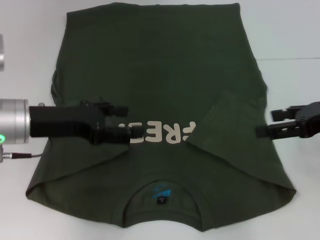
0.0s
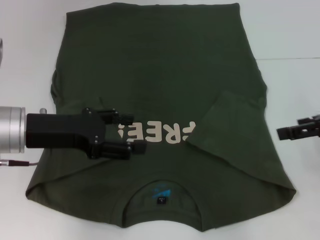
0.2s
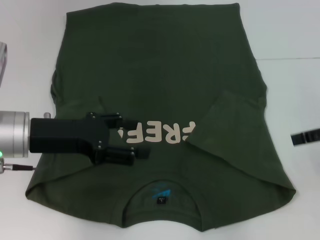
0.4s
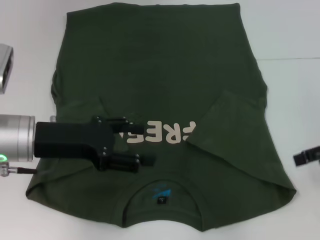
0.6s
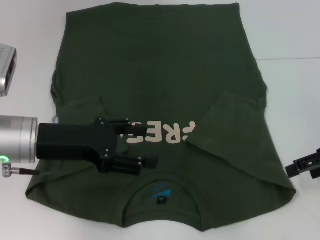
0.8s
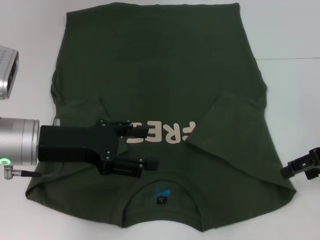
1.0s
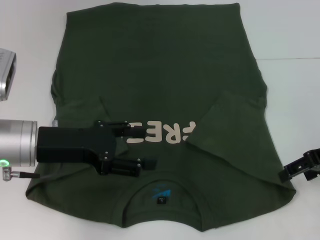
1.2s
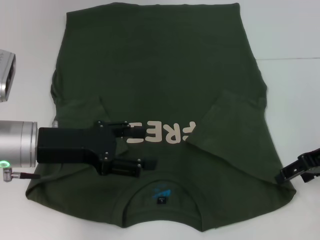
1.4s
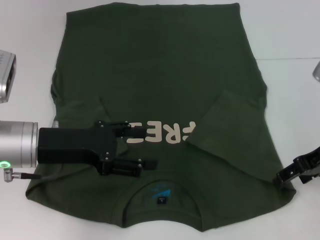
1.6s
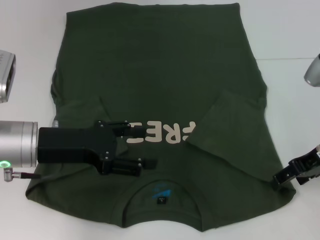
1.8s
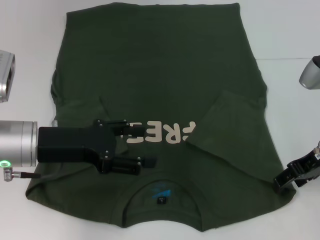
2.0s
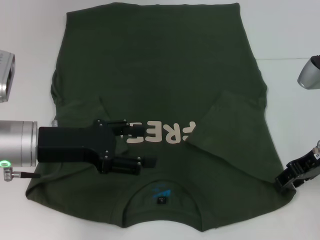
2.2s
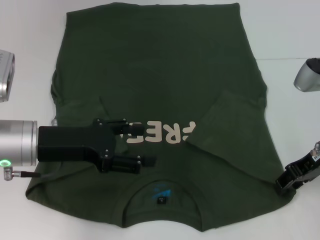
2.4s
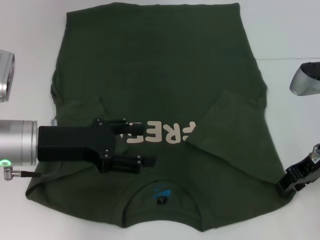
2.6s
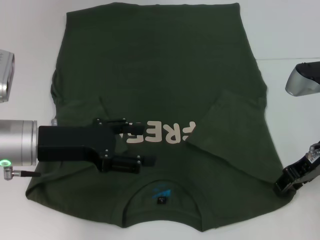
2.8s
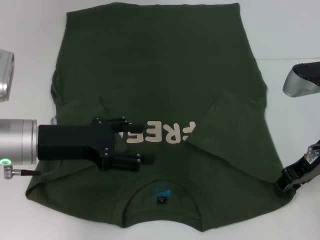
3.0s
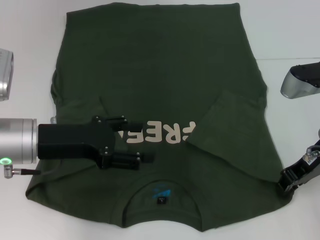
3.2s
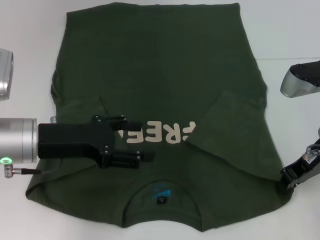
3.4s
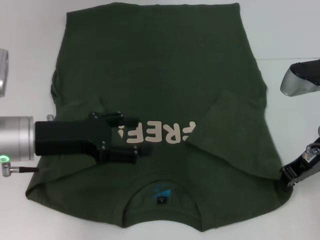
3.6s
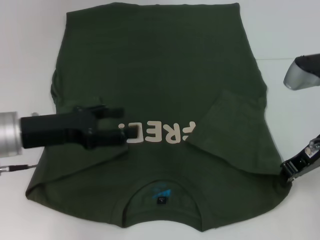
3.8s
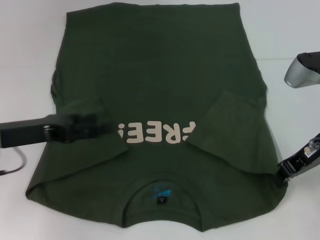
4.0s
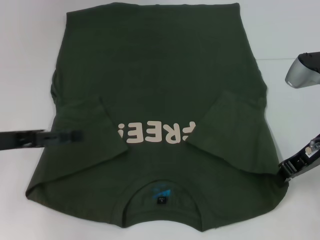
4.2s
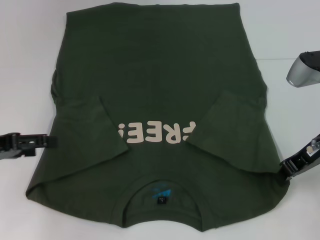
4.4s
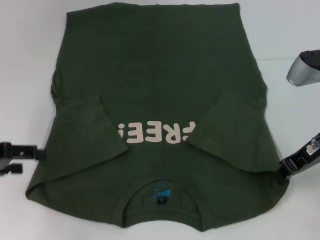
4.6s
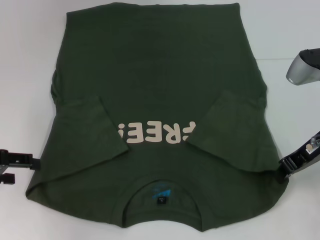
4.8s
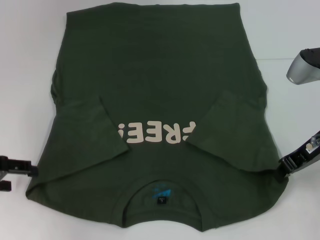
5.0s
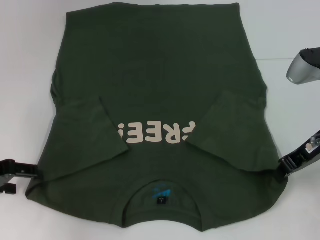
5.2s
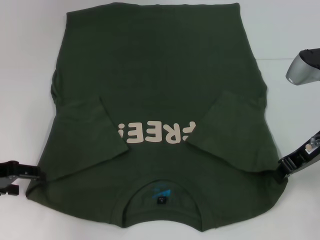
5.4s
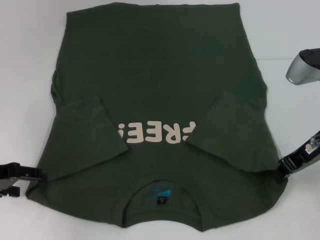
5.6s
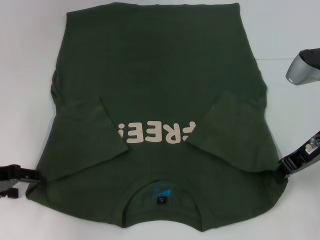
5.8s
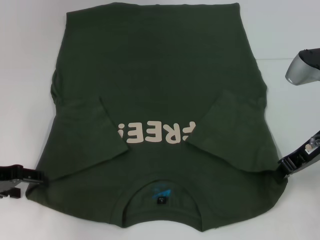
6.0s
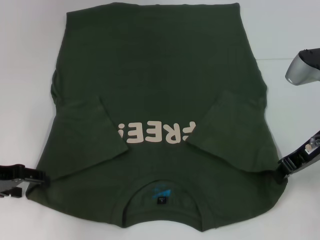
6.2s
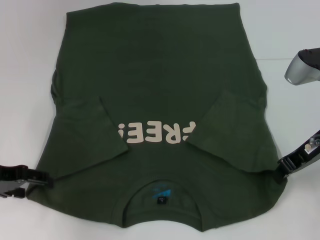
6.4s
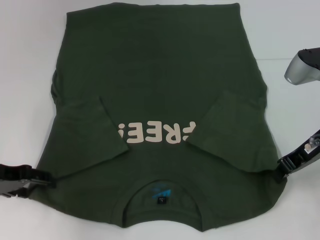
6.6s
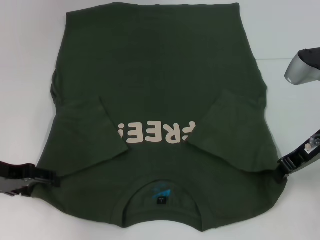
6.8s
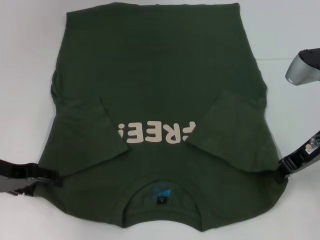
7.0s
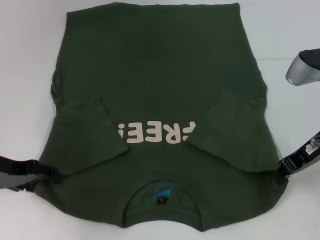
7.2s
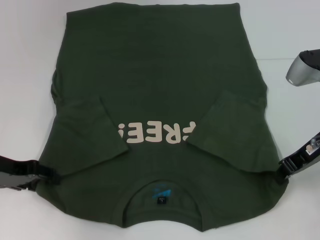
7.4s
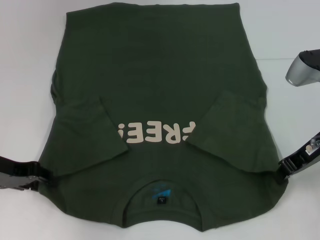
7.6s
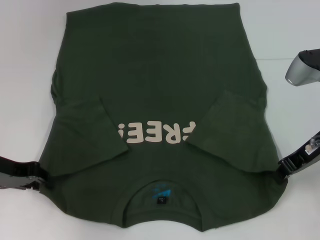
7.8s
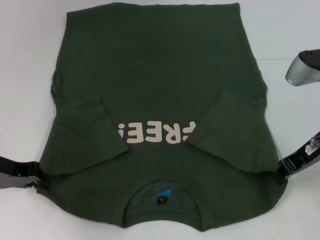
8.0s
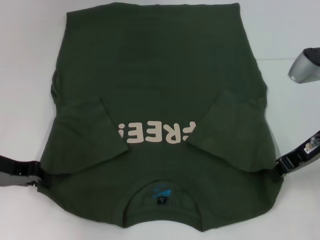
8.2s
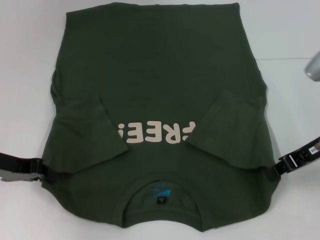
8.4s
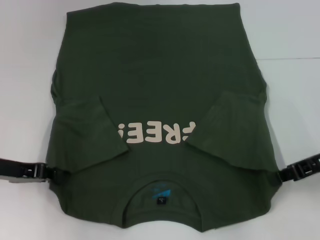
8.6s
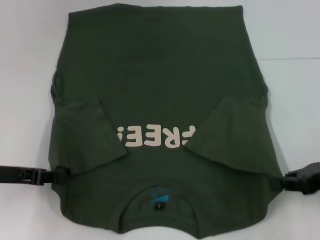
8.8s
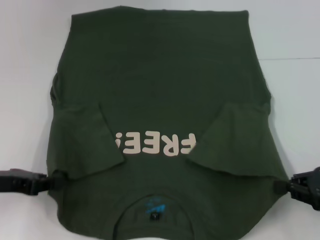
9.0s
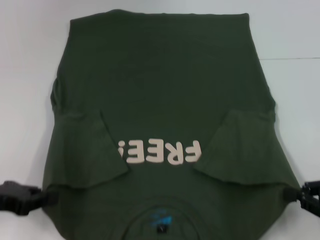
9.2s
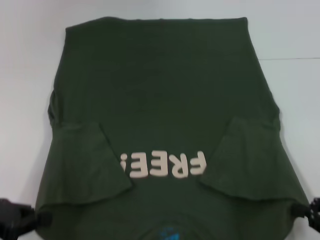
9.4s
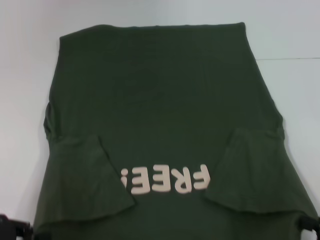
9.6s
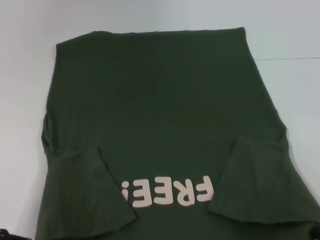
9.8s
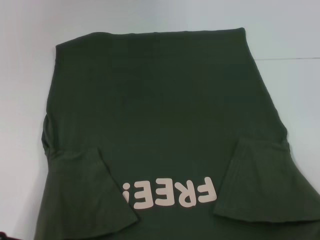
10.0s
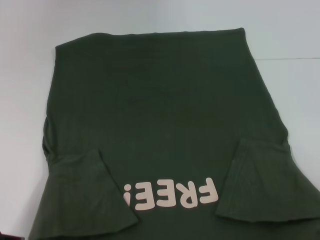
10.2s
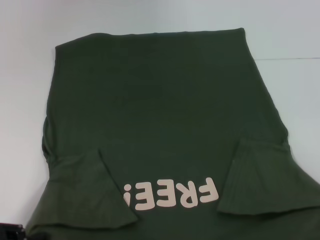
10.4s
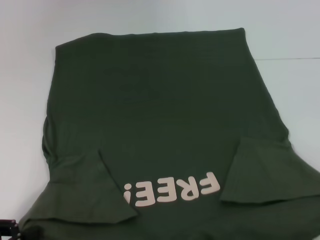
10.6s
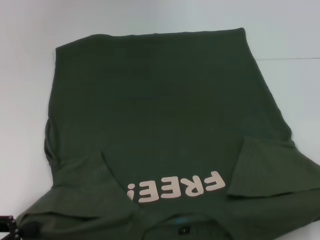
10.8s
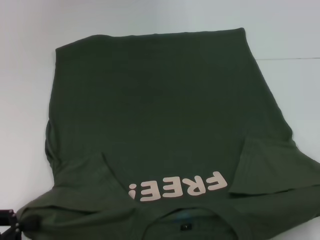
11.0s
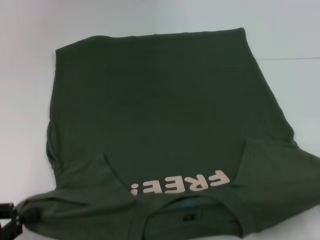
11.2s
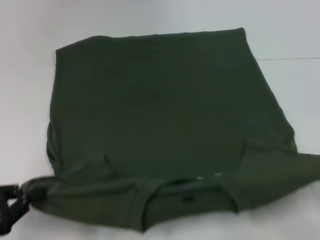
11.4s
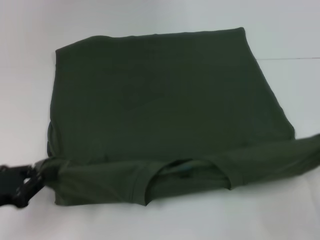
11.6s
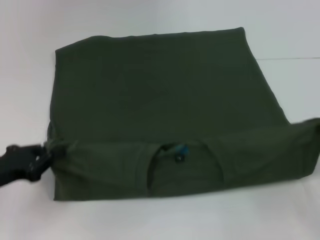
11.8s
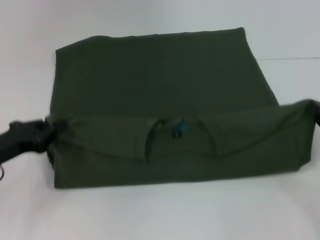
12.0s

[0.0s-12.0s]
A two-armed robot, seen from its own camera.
Step, 0.0s to 4.0s: Grab the bottom right corner with your right hand.
Step, 4.2s to 8.2s: Grab the bottom left corner with your left hand.
0.0s to 1.6s: The right gripper changes place by roughly 5 cm.
1.6s to 3.0s: The right gripper closes.
3.0s to 4.4s: The left gripper goes some 10 cm to the left; the right gripper closes up.
6.0s to 7.6s: There are only small adjustments of the grippers.
7.6s to 9.0s: The left gripper closes its fingers. The right gripper goes about 15 cm backward, to the right and downward.
9.0s to 10.4s: Both grippers move backward, approximately 10 cm.
10.4s to 12.0s: The grippers both shift forward by about 15 cm.

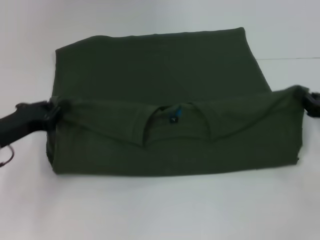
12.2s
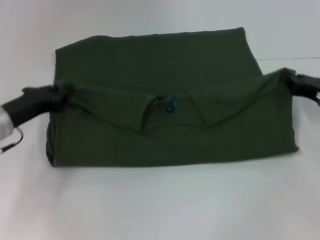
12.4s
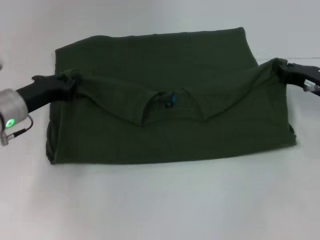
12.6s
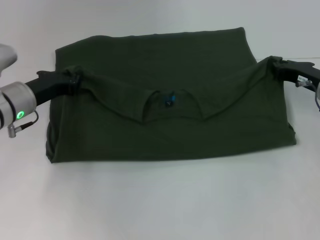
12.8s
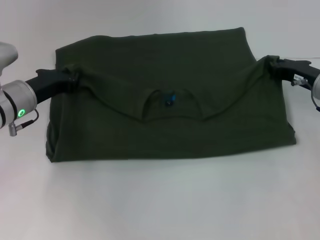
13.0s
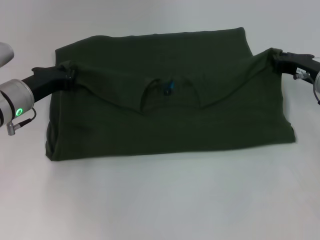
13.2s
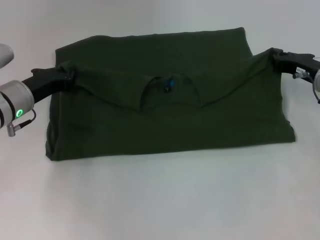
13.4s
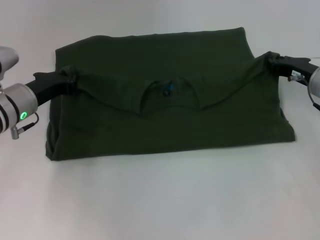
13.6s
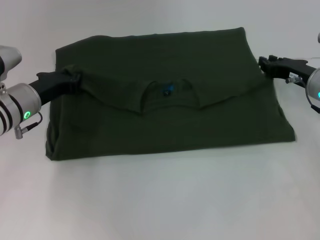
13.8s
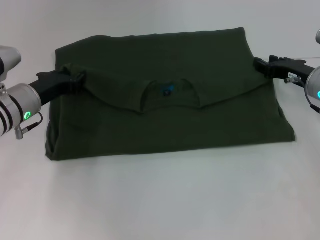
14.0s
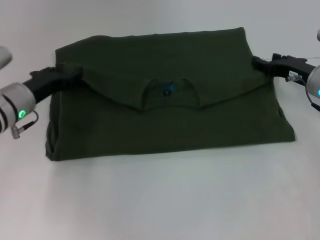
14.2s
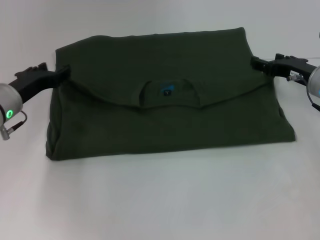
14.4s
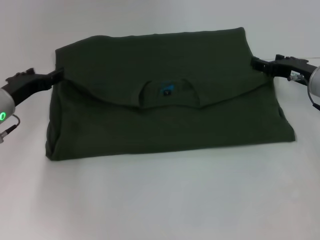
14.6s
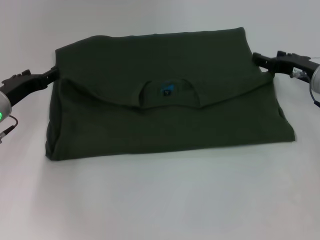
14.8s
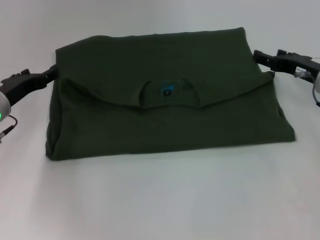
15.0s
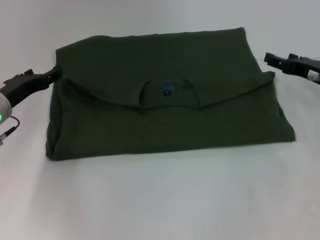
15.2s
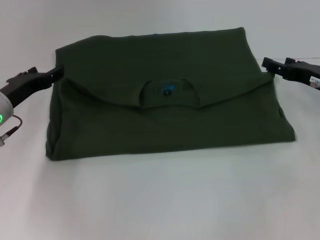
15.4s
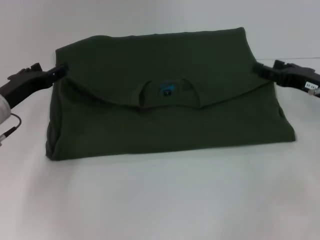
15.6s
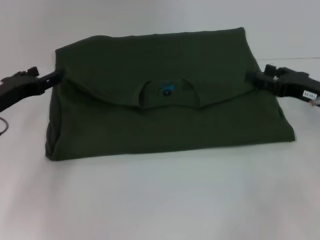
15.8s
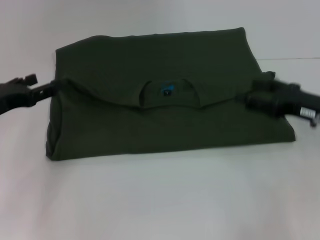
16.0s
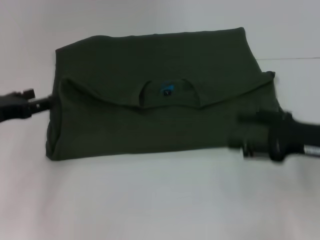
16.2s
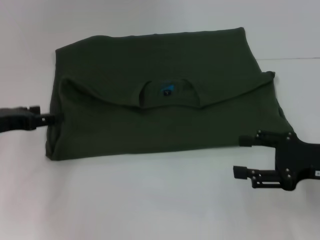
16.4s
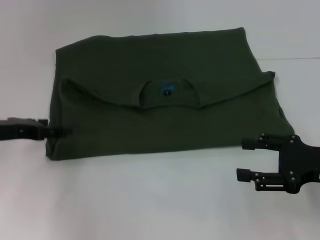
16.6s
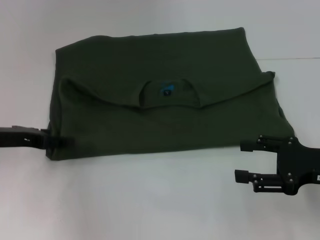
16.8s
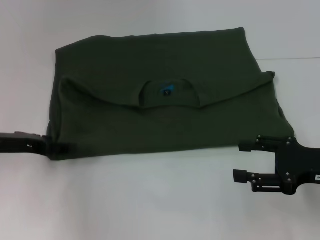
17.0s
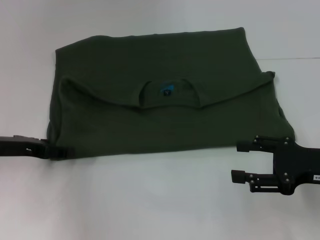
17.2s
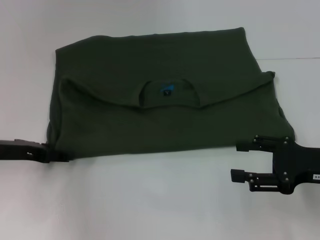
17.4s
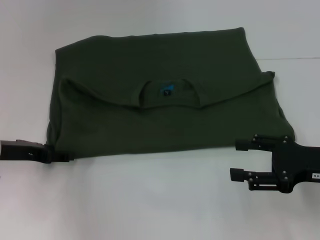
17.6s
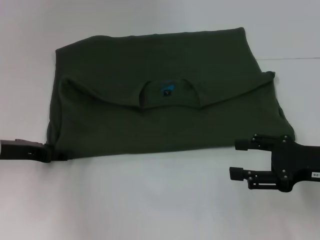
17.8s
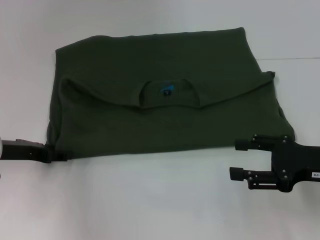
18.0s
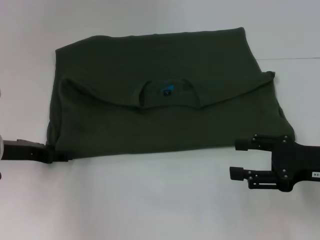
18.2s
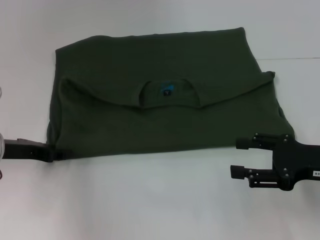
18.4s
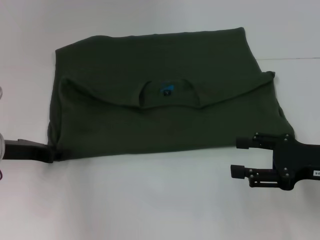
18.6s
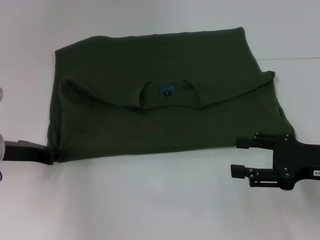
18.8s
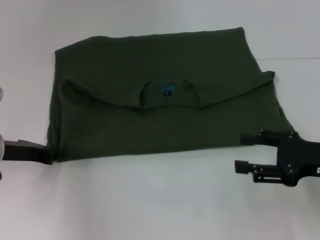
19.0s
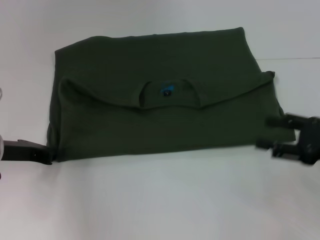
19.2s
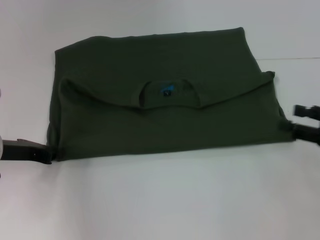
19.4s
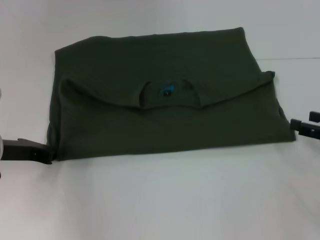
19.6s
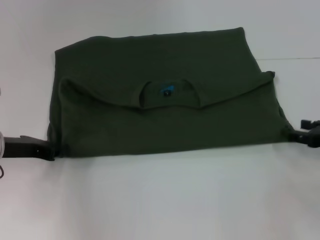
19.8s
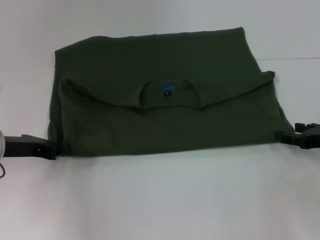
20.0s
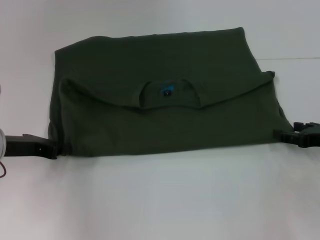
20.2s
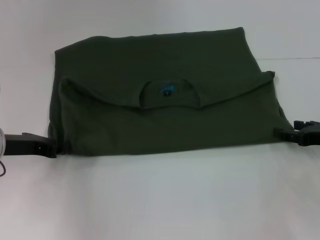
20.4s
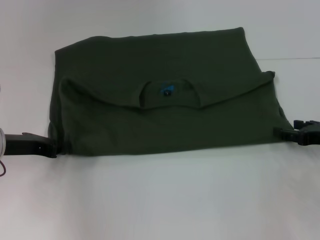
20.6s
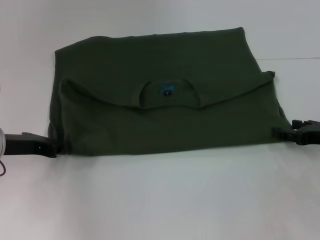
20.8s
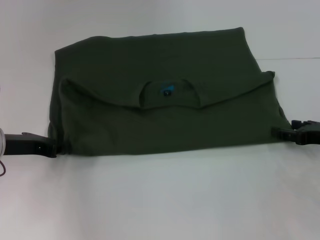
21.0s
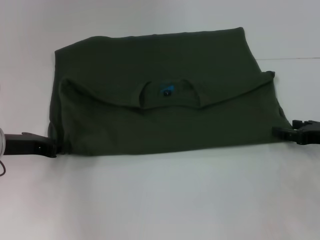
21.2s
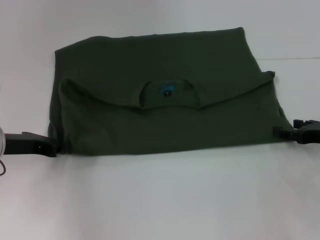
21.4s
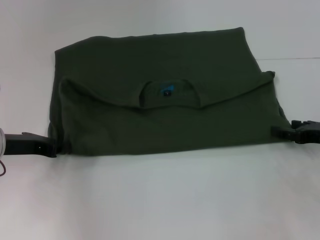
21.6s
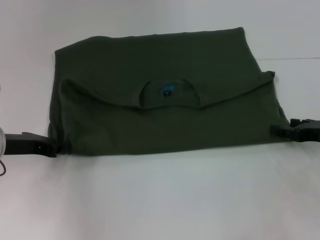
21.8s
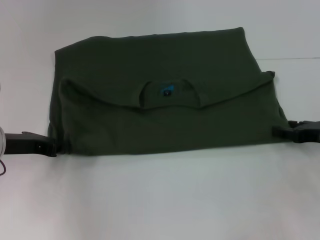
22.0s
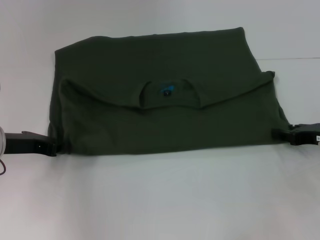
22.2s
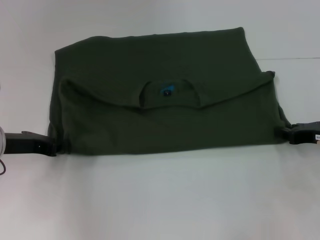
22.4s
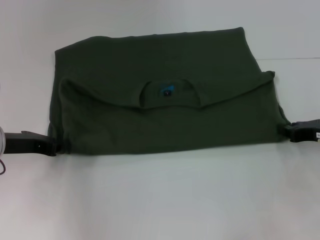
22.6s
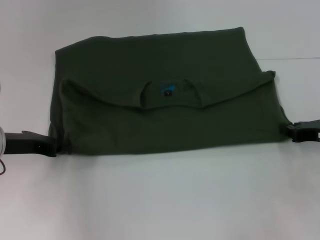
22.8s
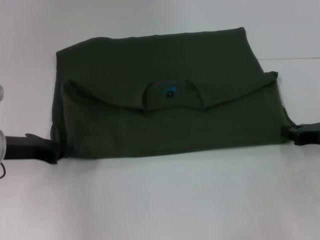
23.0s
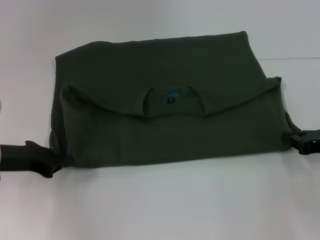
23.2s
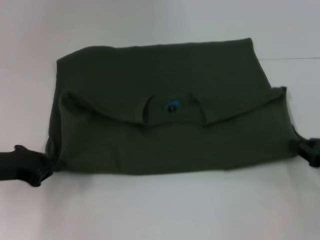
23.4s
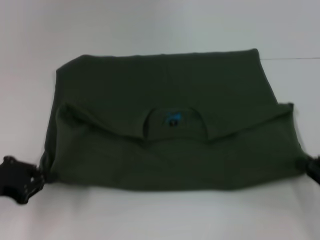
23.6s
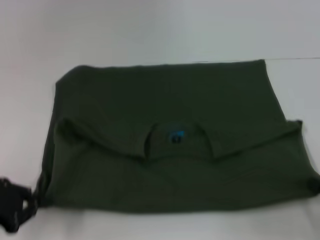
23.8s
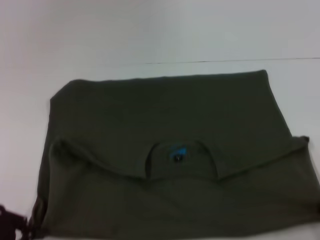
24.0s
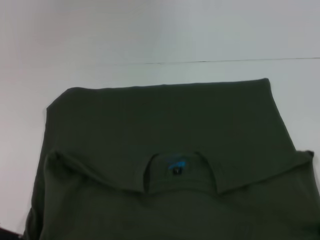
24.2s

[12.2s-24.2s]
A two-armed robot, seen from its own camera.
Step, 12.2s to 14.6s: Fold the clothes with your left hand.
Step, 12.2s to 14.6s: Fold the clothes with your right hand.
12.2s to 13.8s: The right gripper moves forward and to the left, about 10 cm. Meanwhile the left gripper goes about 10 cm forward and to the right.
13.8s to 15.2s: The left gripper opens; the right gripper opens its fingers.
15.2s to 16.6s: The left gripper moves approximately 5 cm; the right gripper shifts some 15 cm backward.
16.6s to 18.2s: There are only small adjustments of the grippers.
18.2s to 19.8s: The right gripper travels to the right by approximately 5 cm; the left gripper closes its fingers.
19.8s to 21.2s: There are only small adjustments of the grippers.
22.6s to 24.2s: The grippers both shift backward by about 20 cm.
